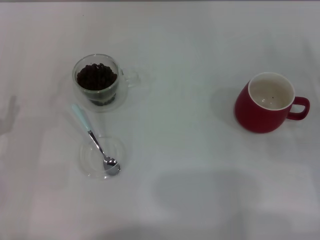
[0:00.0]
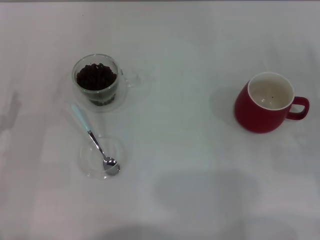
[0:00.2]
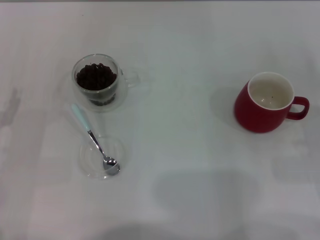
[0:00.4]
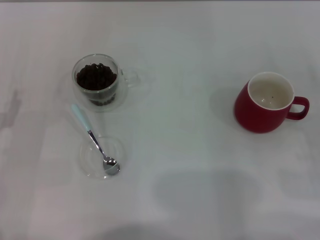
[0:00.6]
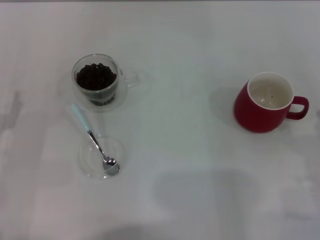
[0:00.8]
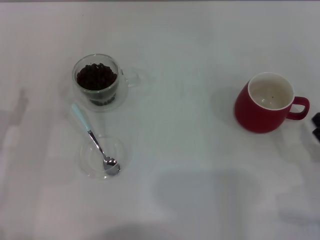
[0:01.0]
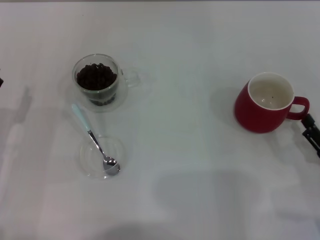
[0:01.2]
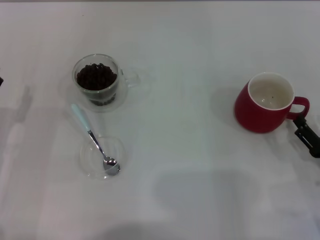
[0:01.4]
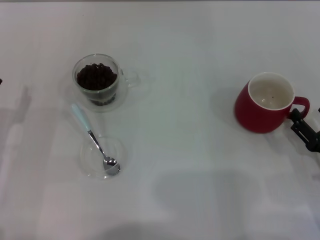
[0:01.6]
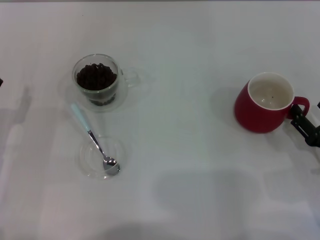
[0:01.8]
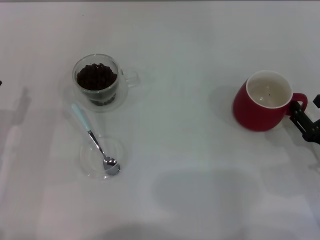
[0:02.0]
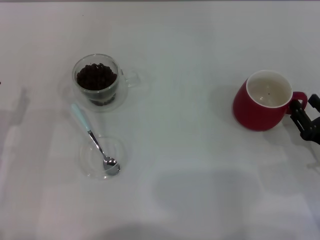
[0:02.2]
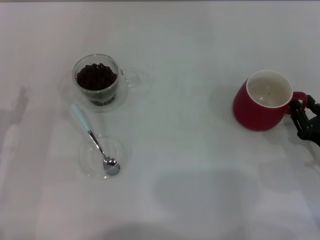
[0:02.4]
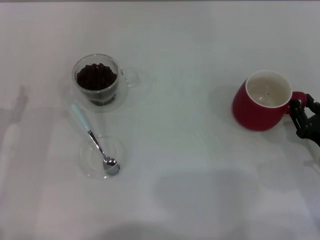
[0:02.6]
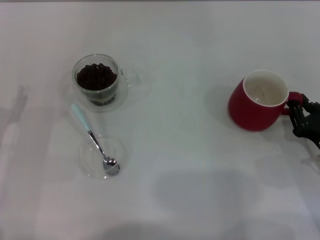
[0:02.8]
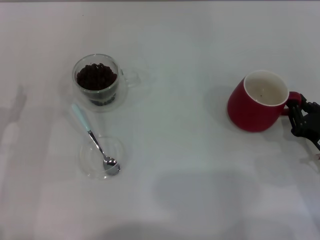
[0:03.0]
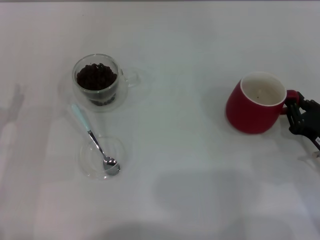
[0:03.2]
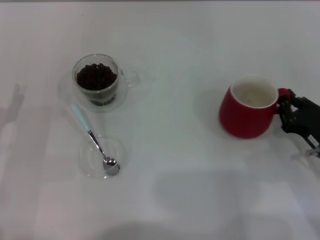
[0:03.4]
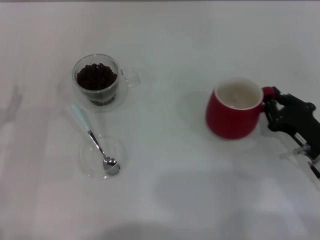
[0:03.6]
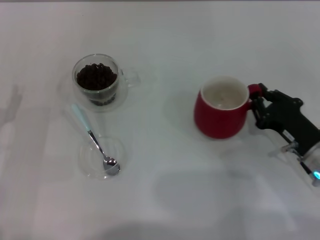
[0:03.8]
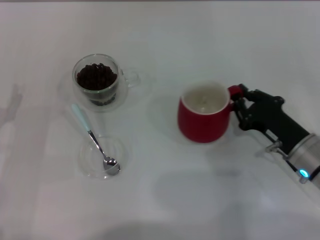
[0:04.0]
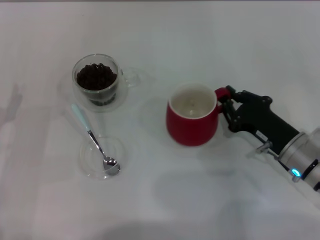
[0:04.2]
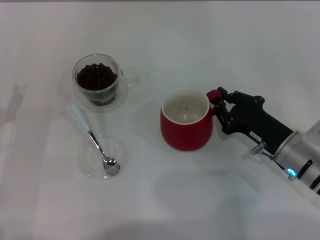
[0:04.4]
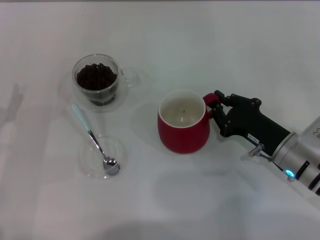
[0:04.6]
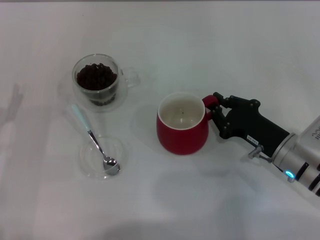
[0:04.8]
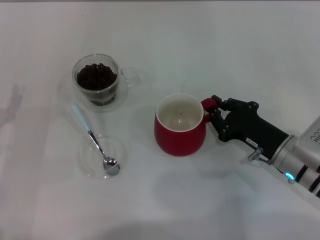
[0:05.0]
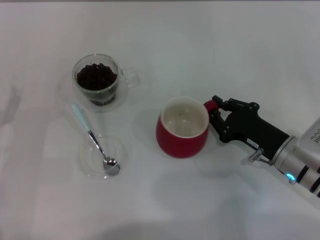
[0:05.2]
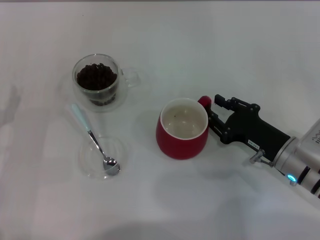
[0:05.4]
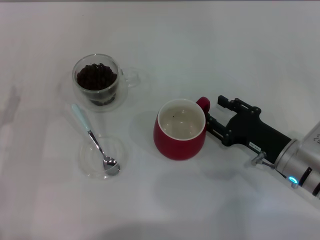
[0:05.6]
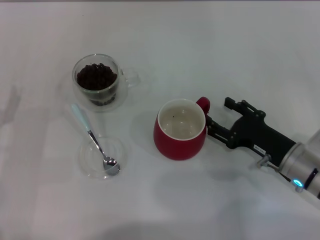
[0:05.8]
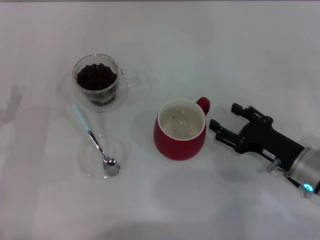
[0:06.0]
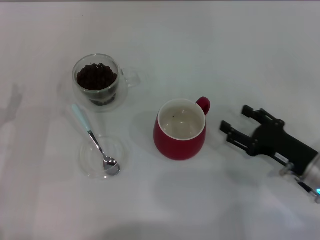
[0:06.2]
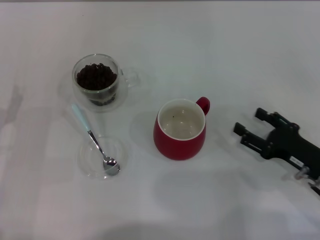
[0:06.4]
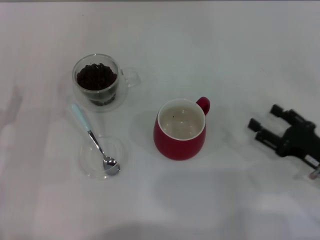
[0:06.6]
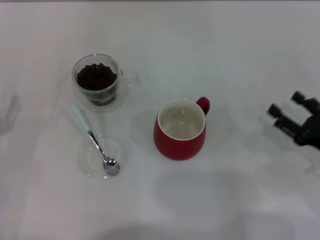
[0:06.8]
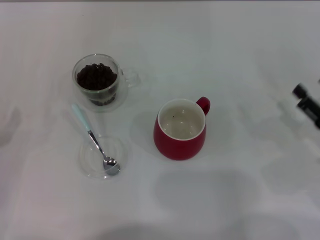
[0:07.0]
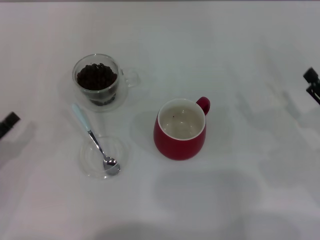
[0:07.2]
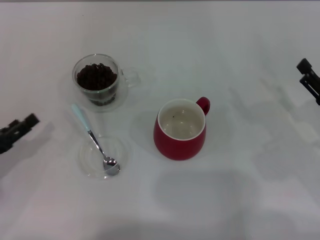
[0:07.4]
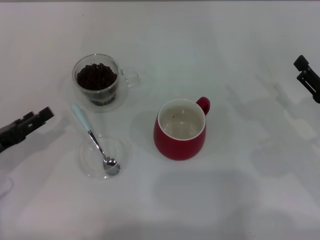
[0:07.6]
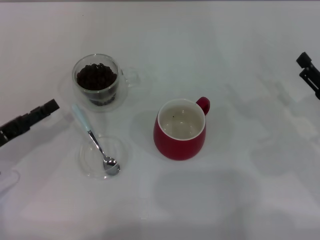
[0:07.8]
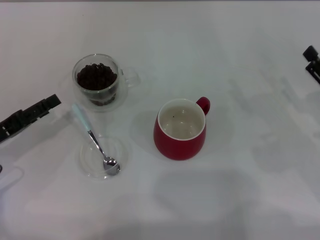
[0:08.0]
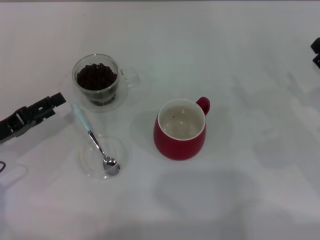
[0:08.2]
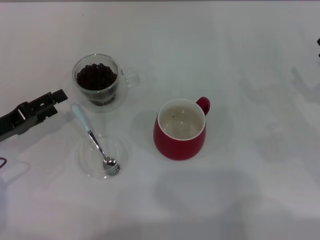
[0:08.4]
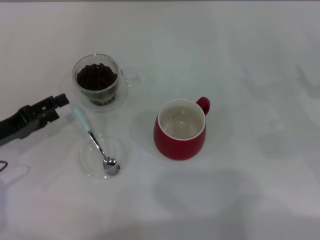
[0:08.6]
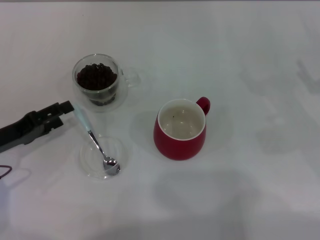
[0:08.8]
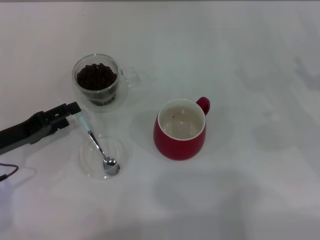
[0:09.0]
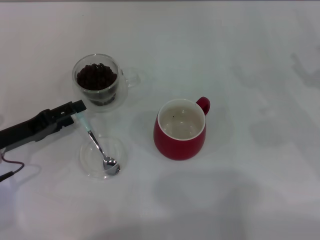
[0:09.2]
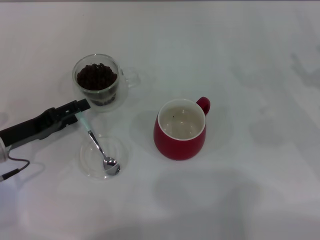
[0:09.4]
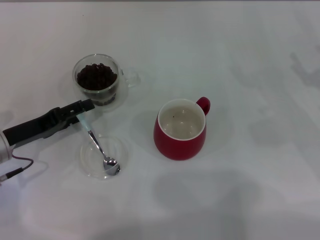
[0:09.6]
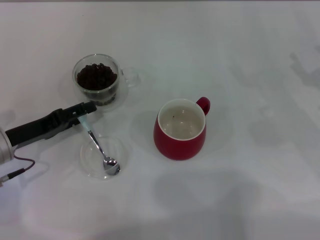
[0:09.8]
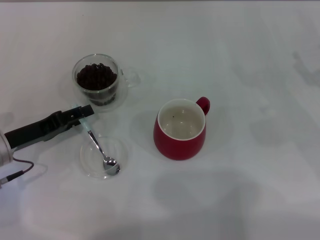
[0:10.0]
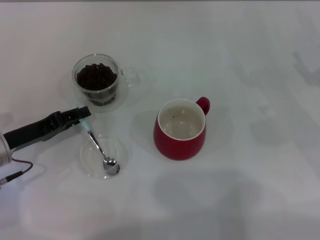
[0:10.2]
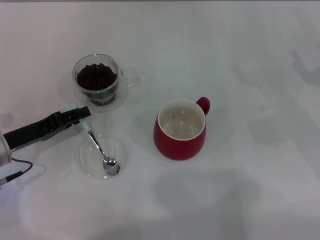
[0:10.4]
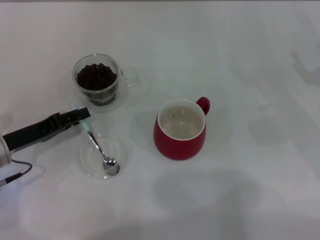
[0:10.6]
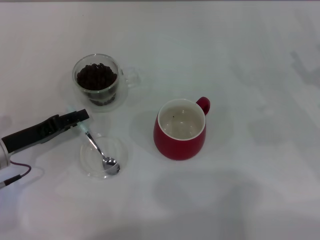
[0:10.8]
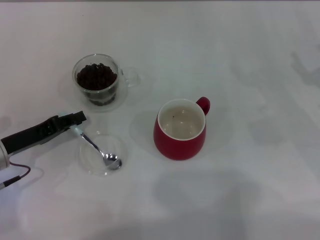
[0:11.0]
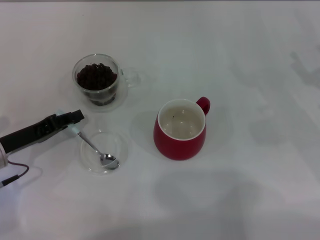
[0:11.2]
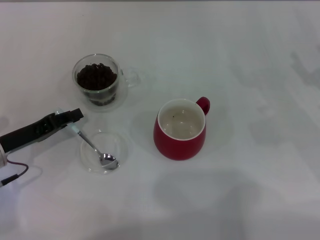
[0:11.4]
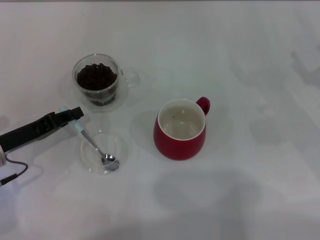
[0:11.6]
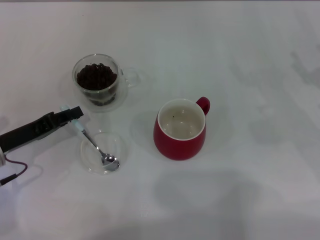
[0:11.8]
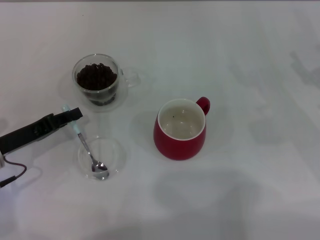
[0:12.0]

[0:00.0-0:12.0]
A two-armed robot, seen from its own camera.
Task of the whole recording: Use a blue spoon to take out the coffee beans from the glass and pour them into the red cup.
Step, 0:00.0 to 0:06.0: Move the cup to the center of view with the left gripper.
0:00.0 to 0:01.6: The right gripper goes about 5 cm backward.
0:01.6 to 0:03.0: The right gripper closes.
0:03.0 to 0:04.4: The right gripper shifts some 10 cm to the left.
0:04.4 to 0:06.0: The right gripper opens its fingers.
0:06.0 to 0:07.6: The right gripper heads to the right, covering roughly 10 cm.
0:07.6 to 0:09.0: The right gripper shifts by about 5 cm.
0:09.0 to 0:10.4: The left gripper closes up.
0:10.4 to 0:12.0: The left gripper closes up.

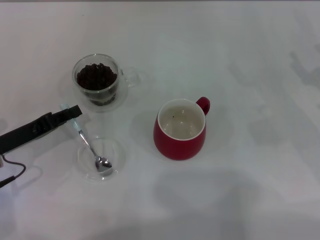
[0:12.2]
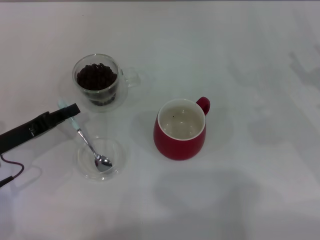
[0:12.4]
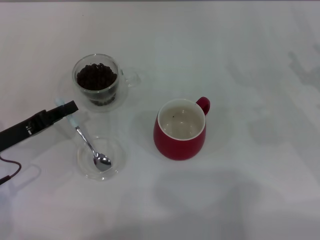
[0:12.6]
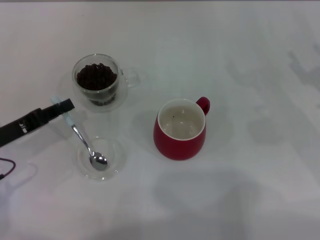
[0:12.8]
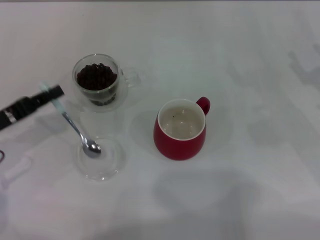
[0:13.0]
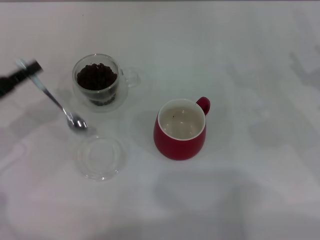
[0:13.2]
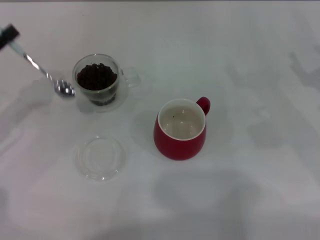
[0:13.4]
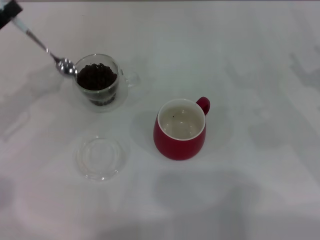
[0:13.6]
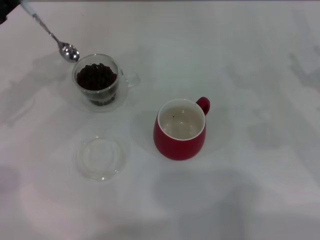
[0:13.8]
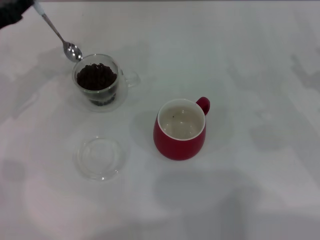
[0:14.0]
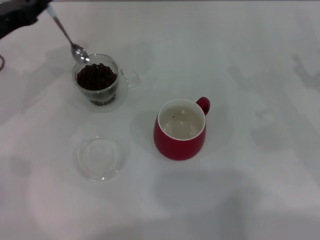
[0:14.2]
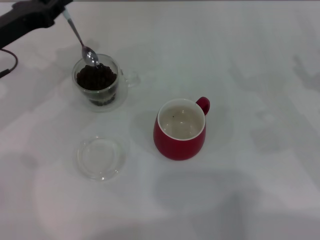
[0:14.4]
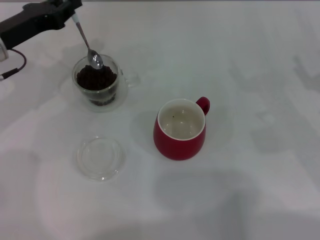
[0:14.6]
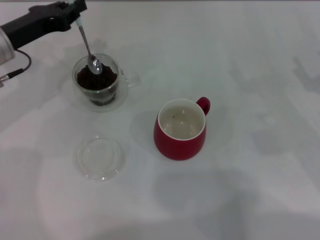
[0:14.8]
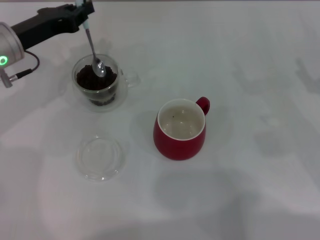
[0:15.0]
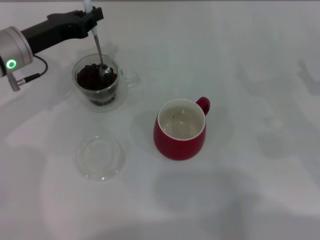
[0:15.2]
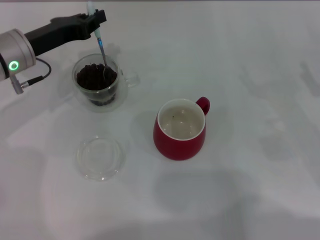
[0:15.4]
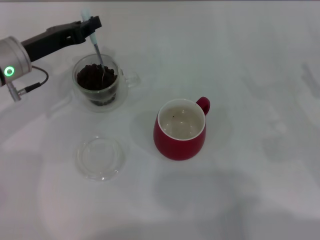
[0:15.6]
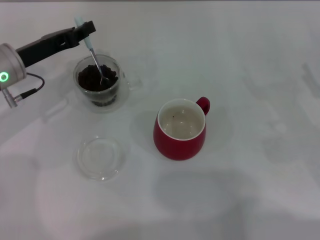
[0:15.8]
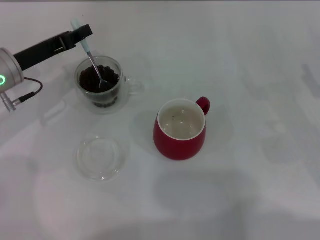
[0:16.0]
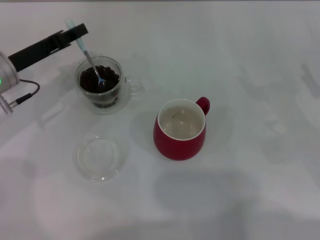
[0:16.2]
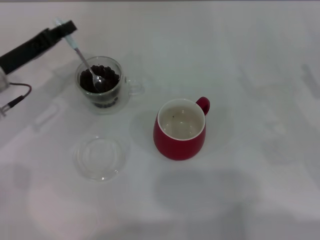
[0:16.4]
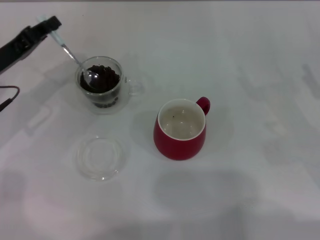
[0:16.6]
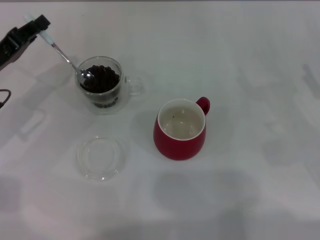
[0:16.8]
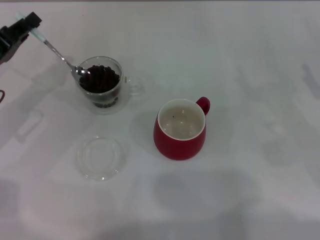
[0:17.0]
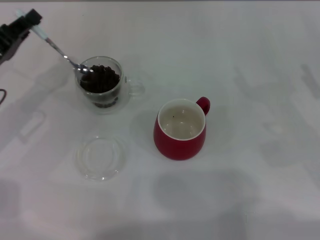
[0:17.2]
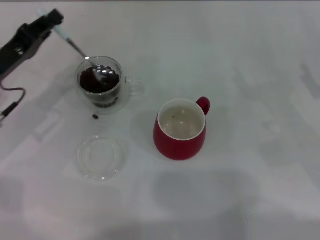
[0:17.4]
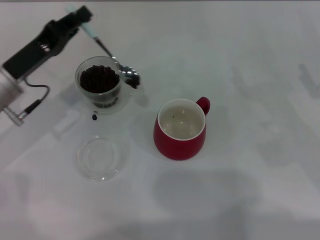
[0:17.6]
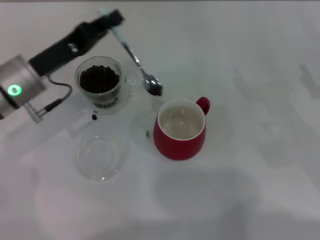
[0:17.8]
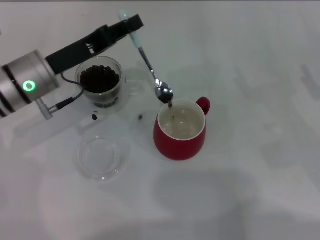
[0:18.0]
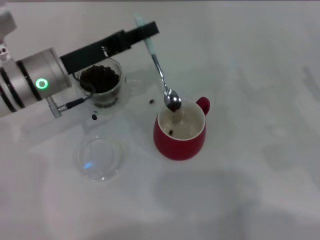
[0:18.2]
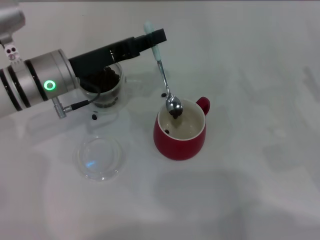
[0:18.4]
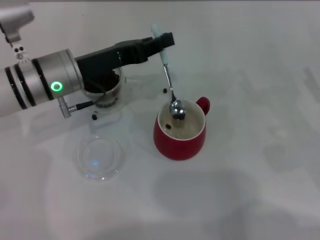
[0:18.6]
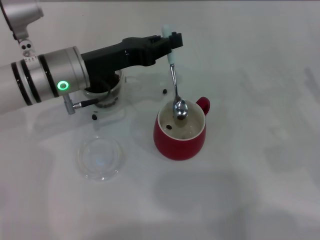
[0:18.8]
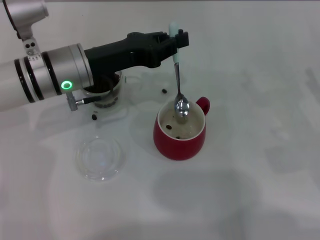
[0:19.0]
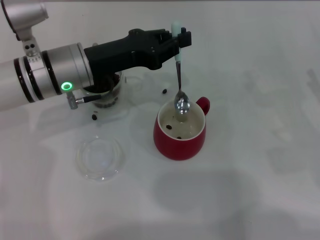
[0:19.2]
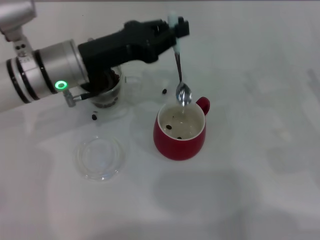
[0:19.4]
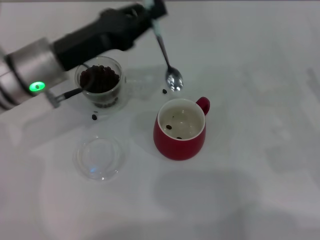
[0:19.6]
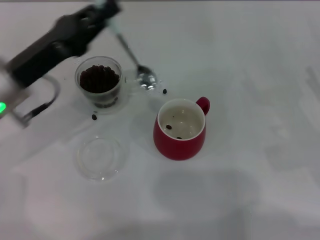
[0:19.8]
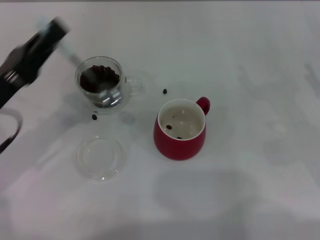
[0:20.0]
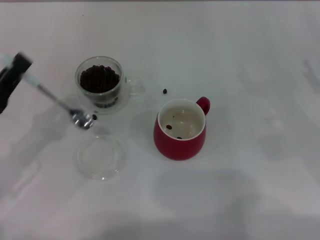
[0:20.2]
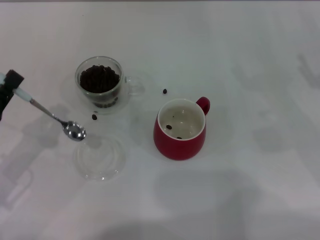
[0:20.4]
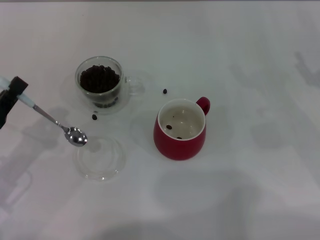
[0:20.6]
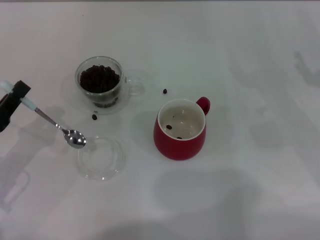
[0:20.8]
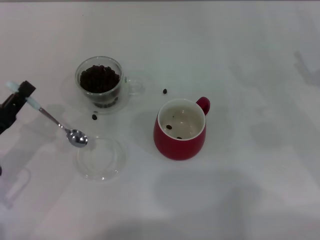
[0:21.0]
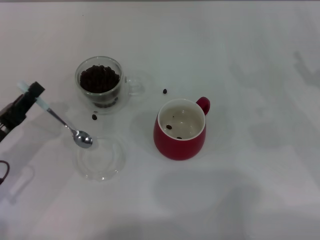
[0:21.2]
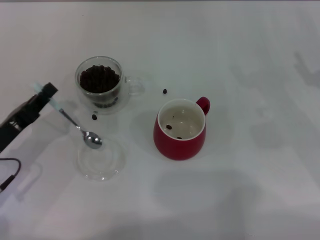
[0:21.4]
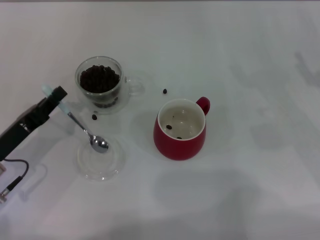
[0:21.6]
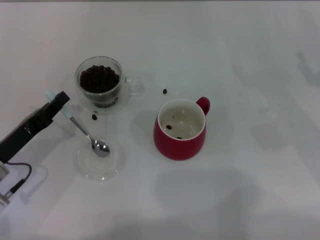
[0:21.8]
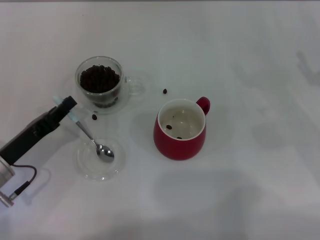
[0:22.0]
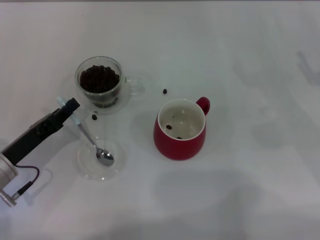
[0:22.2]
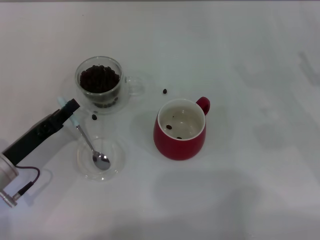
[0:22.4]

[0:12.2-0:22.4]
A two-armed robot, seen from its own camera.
Task of the whole recording: Use a blue spoon to take out the coffee beans from the glass and pour them into the red cup.
0:12.2 to 0:13.6: The left gripper shifts some 10 cm upward.
0:13.6 to 0:15.2: The left gripper is displaced to the right and forward by about 10 cm.
0:15.2 to 0:16.6: The left gripper travels to the left by roughly 5 cm.
0:16.6 to 0:18.0: The left gripper is displaced to the right by approximately 10 cm.
0:19.4 to 0:21.0: The left gripper travels to the left, backward and downward by roughly 20 cm.
0:21.0 to 0:22.4: The left gripper ends up roughly 5 cm from where it was.
